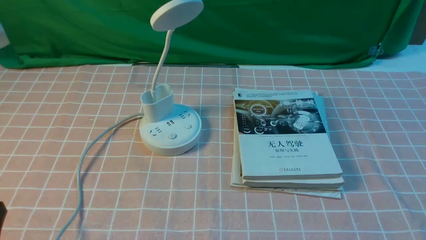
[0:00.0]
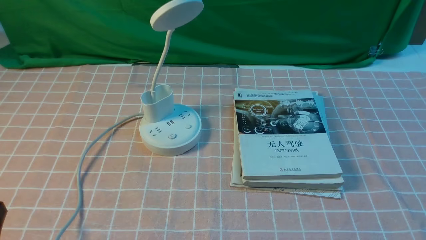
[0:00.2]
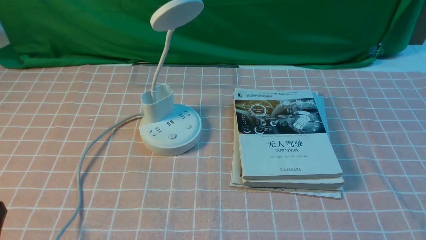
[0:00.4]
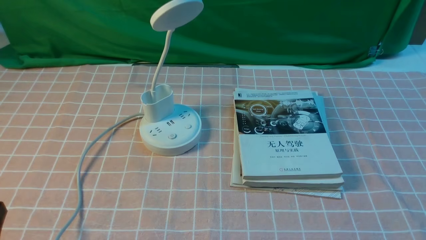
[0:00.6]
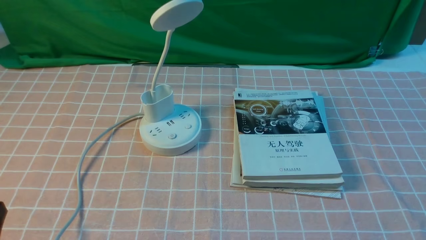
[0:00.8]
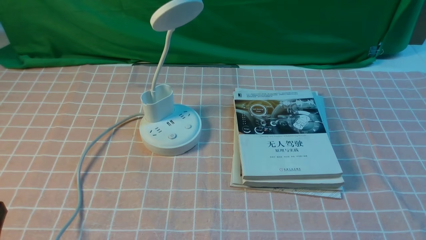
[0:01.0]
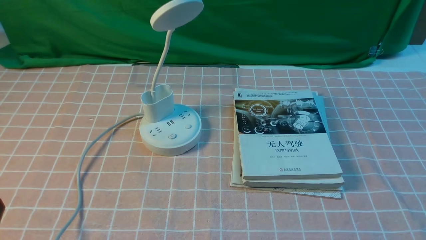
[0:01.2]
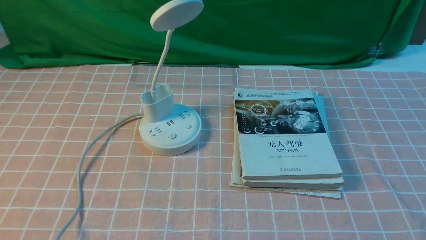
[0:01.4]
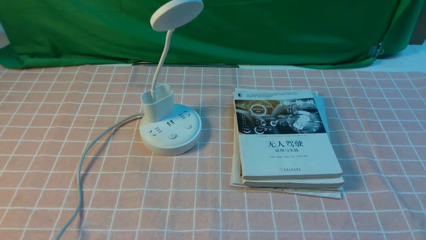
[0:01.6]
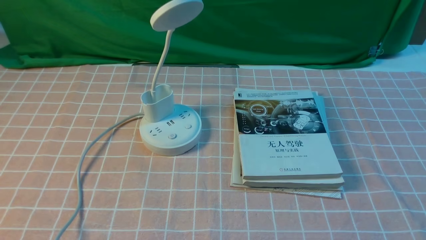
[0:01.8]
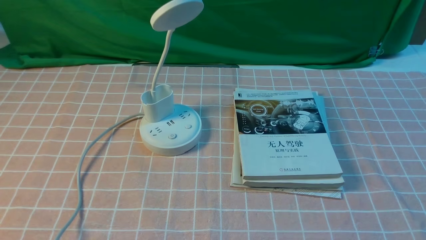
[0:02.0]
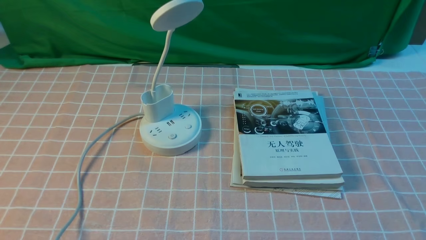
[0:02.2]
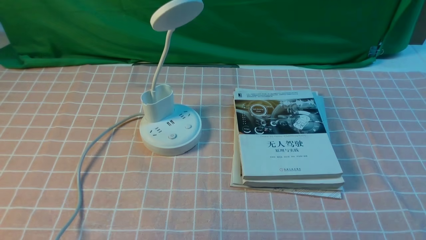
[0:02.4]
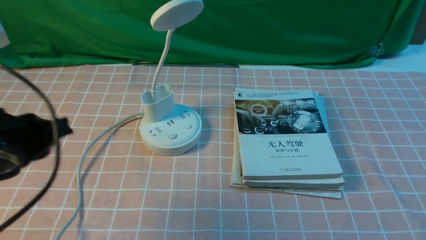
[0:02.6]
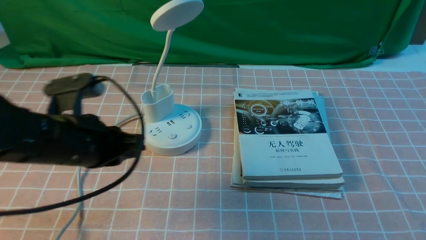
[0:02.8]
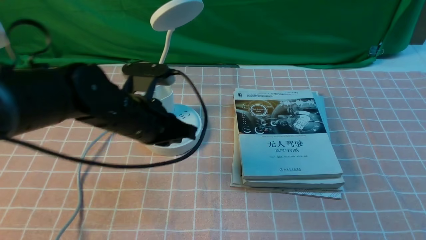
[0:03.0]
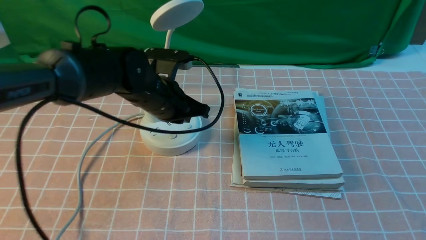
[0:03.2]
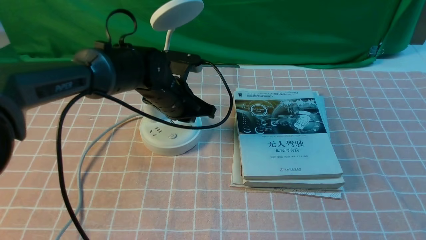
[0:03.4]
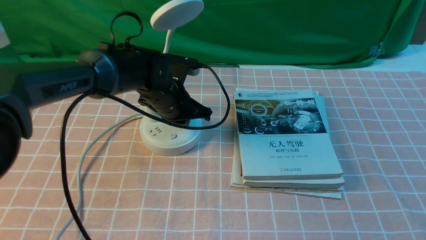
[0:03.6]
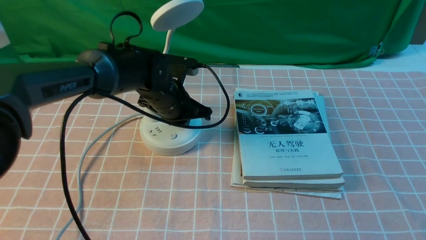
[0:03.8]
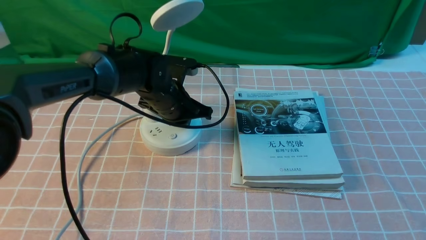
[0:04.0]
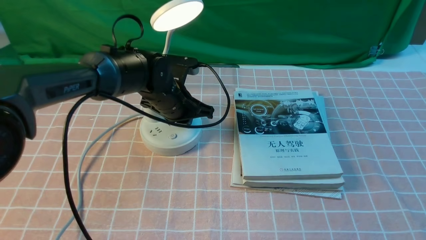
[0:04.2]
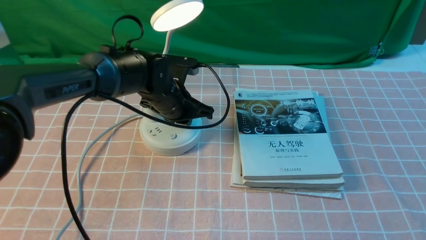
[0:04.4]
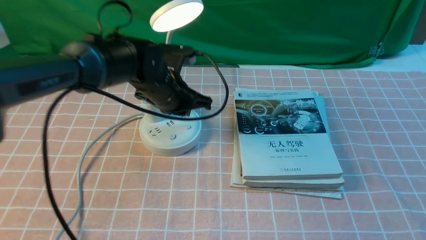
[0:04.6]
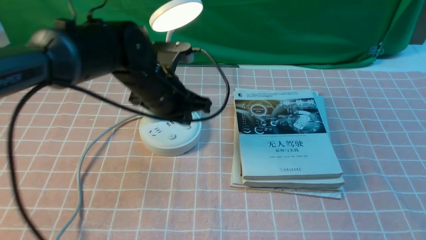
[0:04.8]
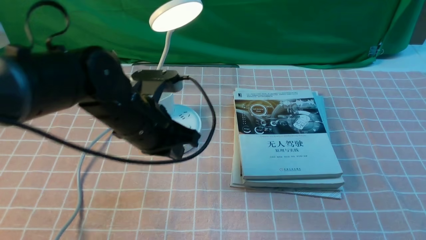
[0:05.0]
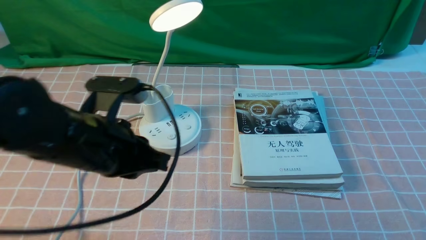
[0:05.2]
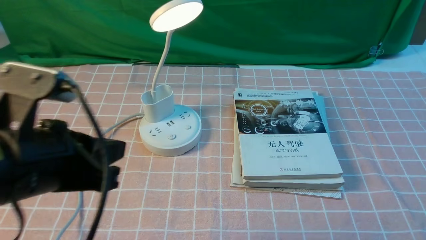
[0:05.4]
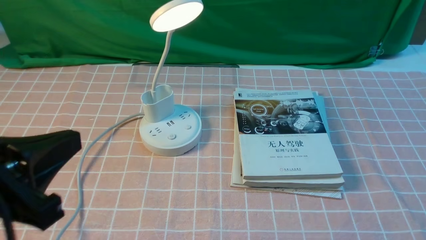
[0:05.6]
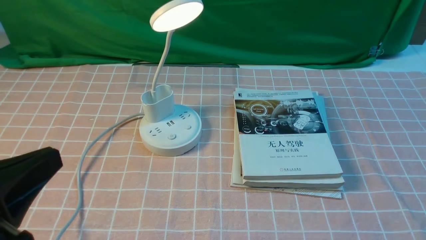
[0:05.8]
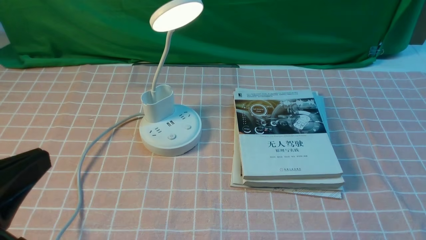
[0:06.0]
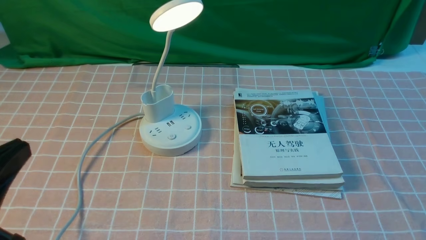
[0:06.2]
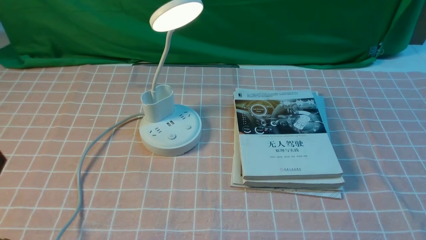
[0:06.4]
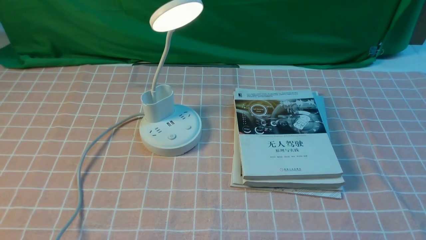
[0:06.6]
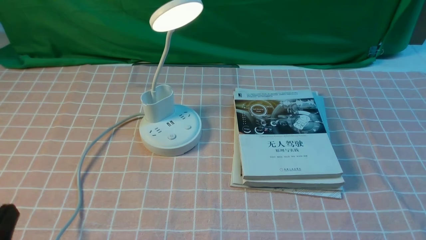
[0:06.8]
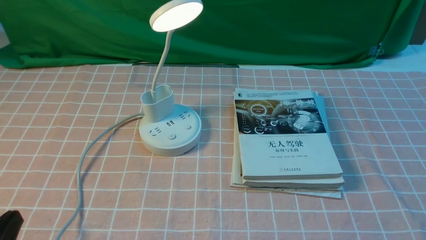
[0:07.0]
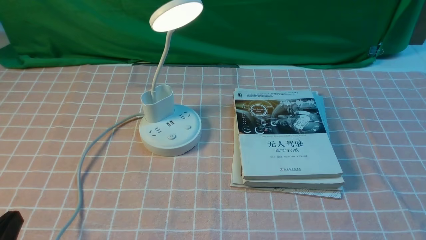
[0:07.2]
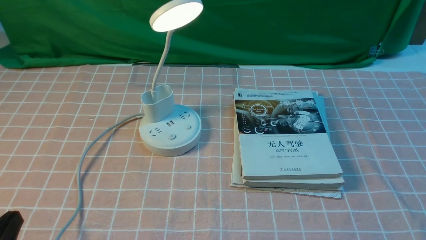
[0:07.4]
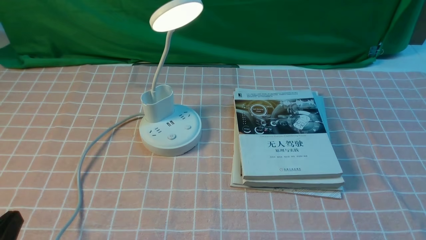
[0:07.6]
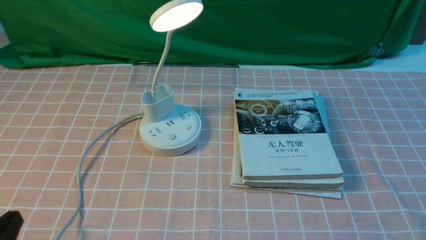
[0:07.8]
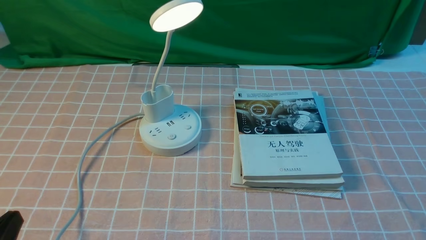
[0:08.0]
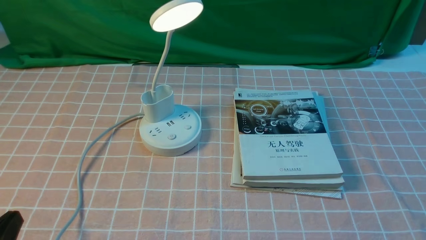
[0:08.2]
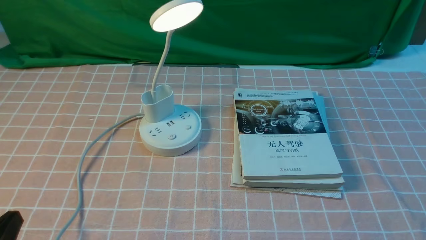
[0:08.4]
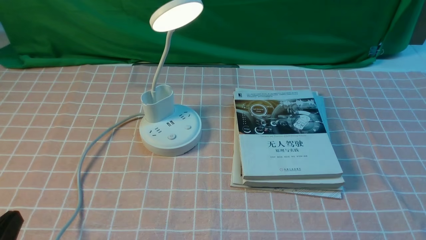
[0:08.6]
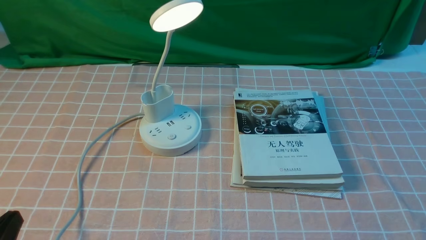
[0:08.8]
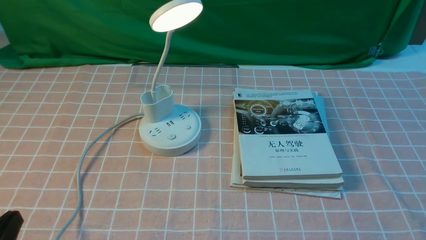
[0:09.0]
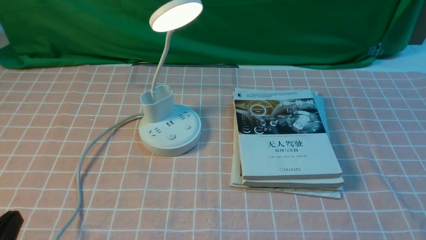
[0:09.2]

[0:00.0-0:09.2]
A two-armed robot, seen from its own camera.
Step, 0:00.0 to 0:04.6: use the left arm to press the button switch on the lamp holder.
0:01.6 to 0:03.0: The left gripper is displaced forward and to the right by roughly 30 cm, and opens up.
0:03.0 to 0:04.6: The left gripper goes some 5 cm forward.
0:04.6 to 0:06.2: The left gripper moves backward and to the left, approximately 35 cm.
0:06.2 to 0:07.6: The left gripper goes some 10 cm downward.
0:07.6 to 0:09.2: Neither gripper changes place.
